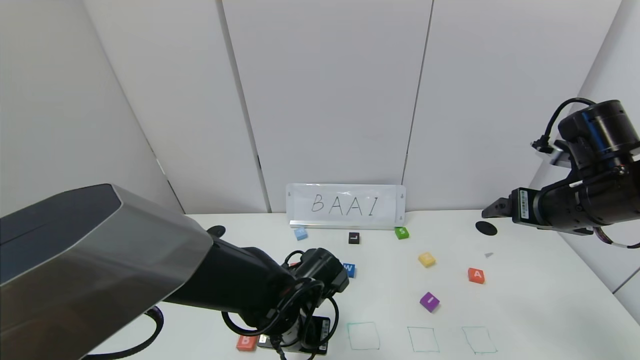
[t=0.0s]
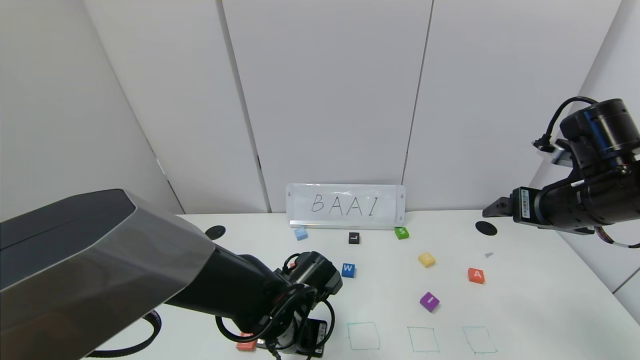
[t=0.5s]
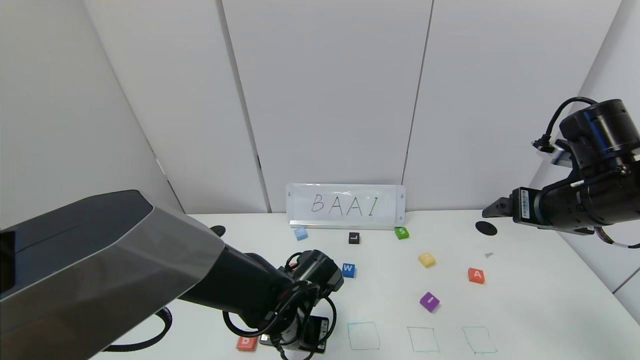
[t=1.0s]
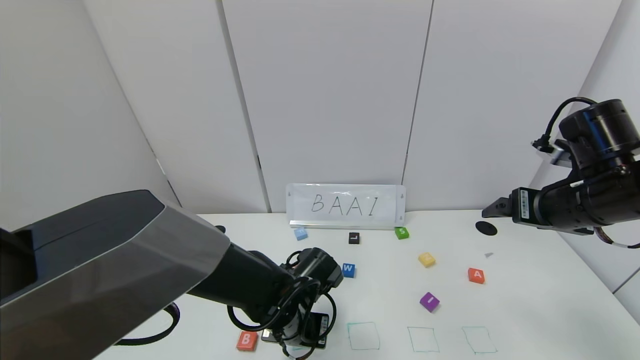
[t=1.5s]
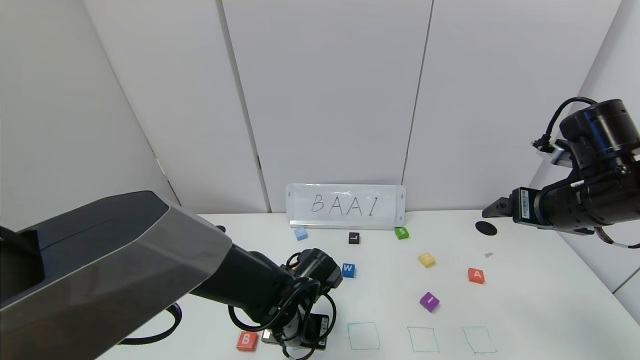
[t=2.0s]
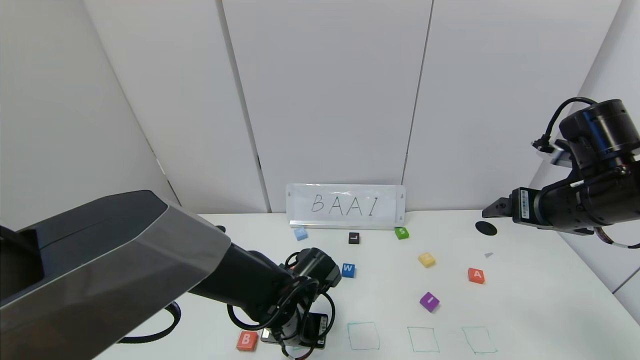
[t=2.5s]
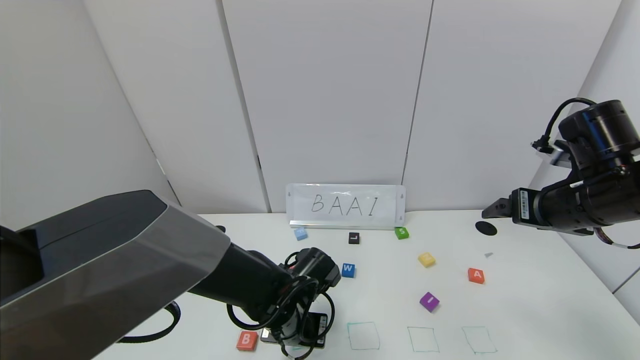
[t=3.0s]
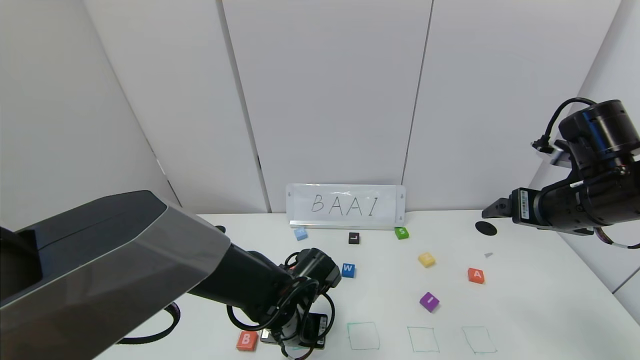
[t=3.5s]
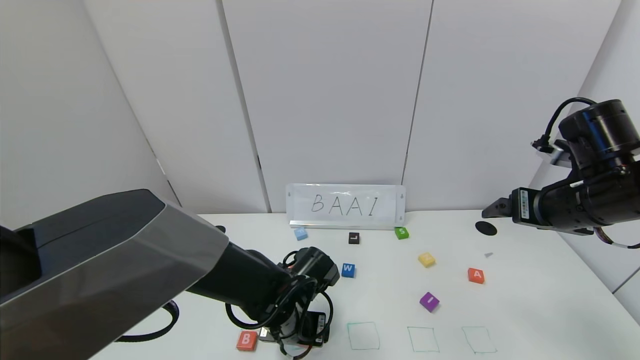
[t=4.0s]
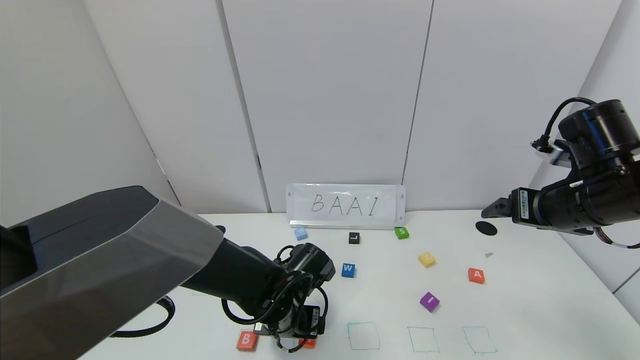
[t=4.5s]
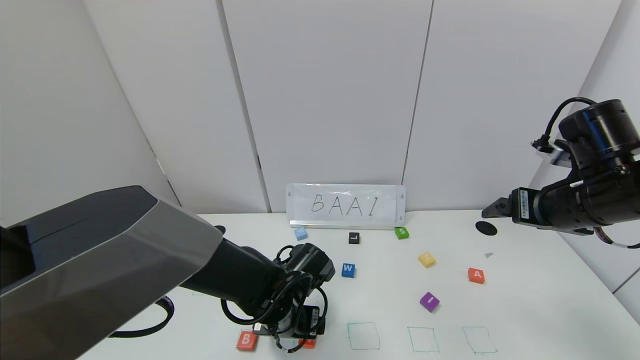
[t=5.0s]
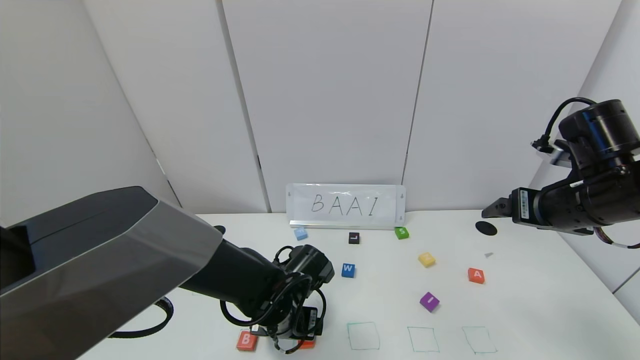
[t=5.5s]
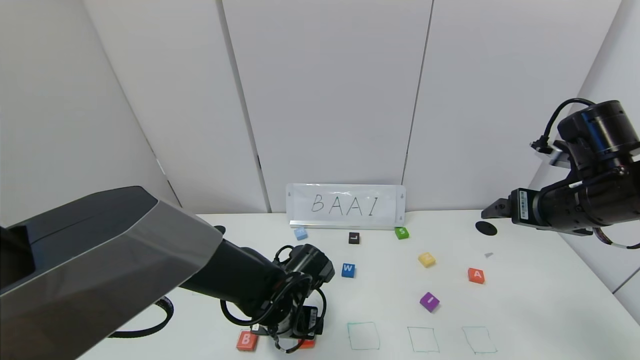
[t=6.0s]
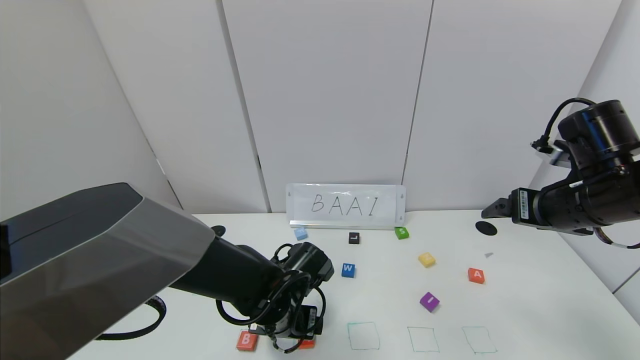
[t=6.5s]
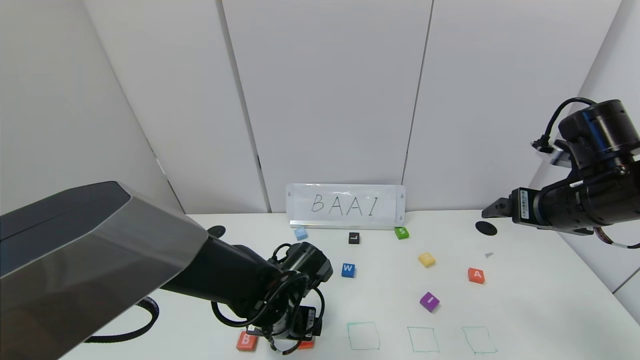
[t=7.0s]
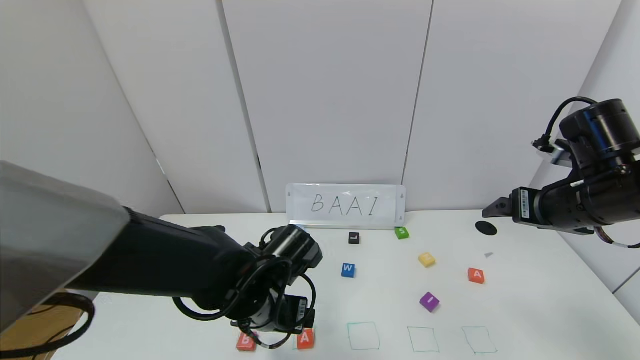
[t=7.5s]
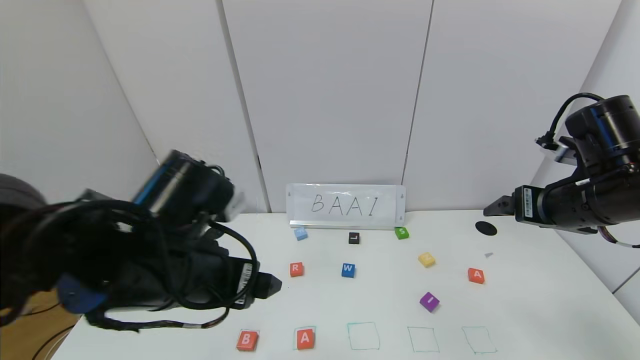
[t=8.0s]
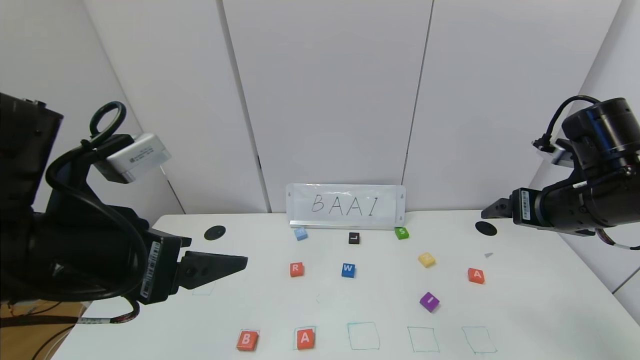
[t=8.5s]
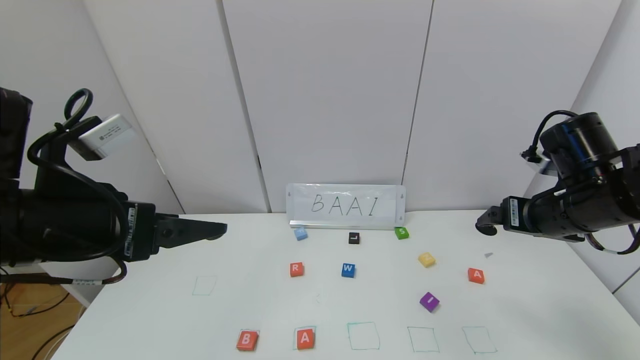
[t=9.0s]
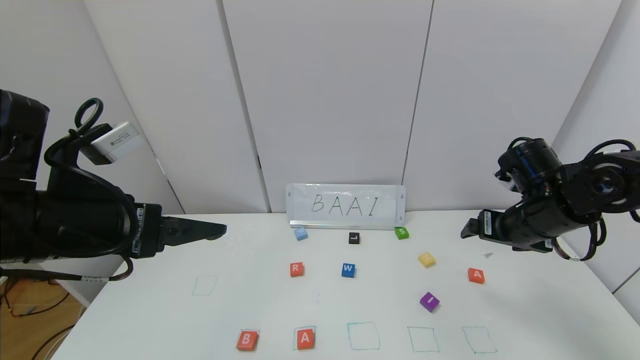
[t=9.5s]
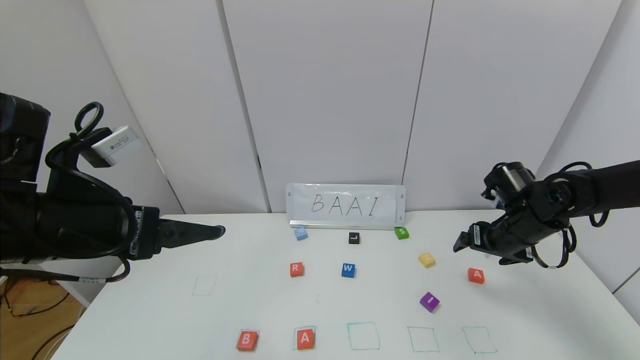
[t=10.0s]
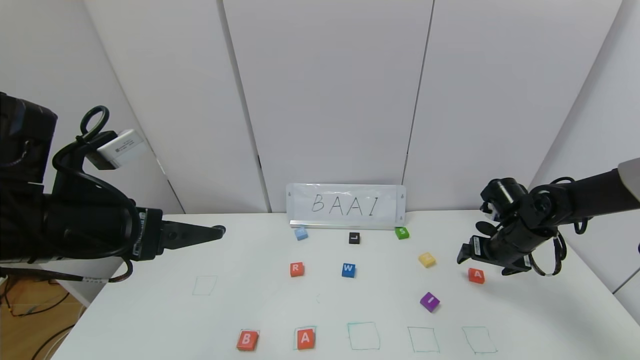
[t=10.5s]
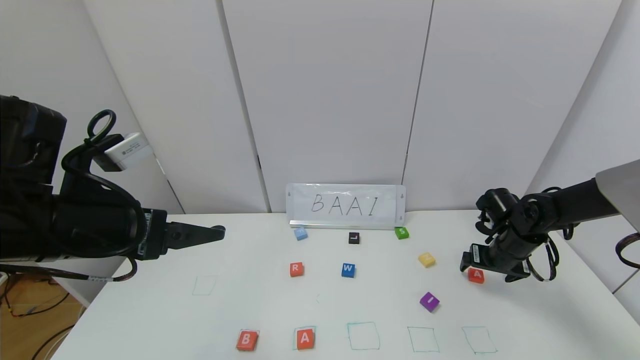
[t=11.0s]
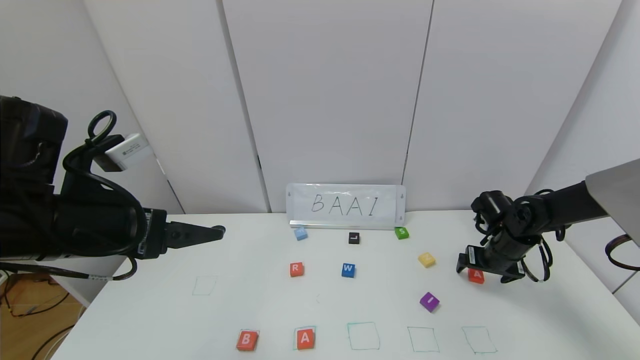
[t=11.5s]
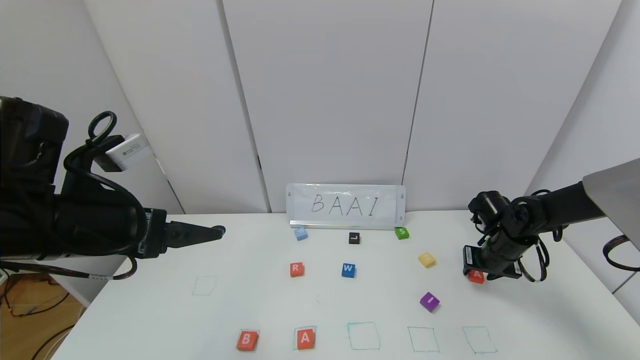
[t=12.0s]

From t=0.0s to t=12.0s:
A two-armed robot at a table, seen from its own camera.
Task of the whole recording: use the gripper to find blocks with the letters b, a, a, and i on the table and arrange them into BAAI, then find r and N and turn the arranged baai into brian.
Step, from t=0.0s to t=3.5s: Place the first block A in the second location.
From t=0.0s to t=2.0s: The grippers make only small movements.
From t=2.0s to t=4.0s: The left gripper opens its fingers.
From t=4.0s to t=6.0s: The grippers make only small movements.
From t=6.0s to t=8.0s: The left gripper goes approximately 20 cm upward, backward and to the left.
From t=8.0s to t=10.0s: The right gripper shifts approximately 15 cm downward and forward. Meanwhile the left gripper goes approximately 10 cm to the left.
From t=10.0s to t=12.0s: The right gripper heads downward, covering about 5 cm, and closes up.

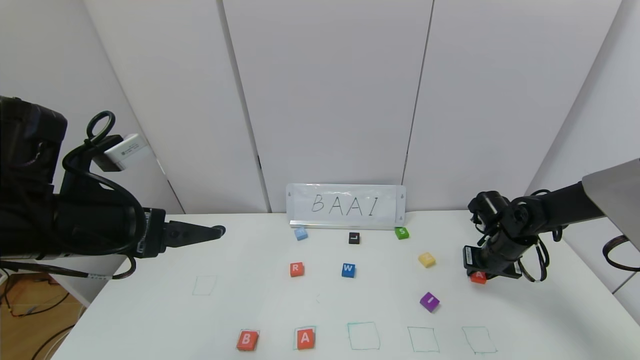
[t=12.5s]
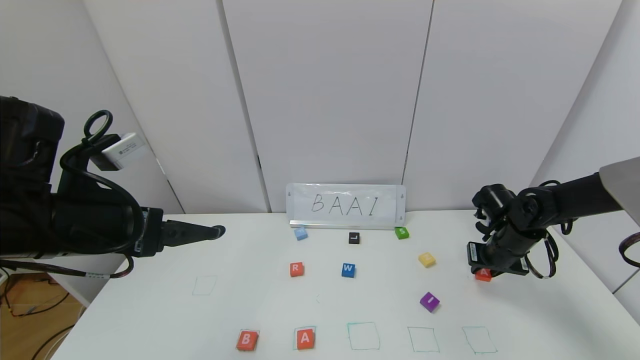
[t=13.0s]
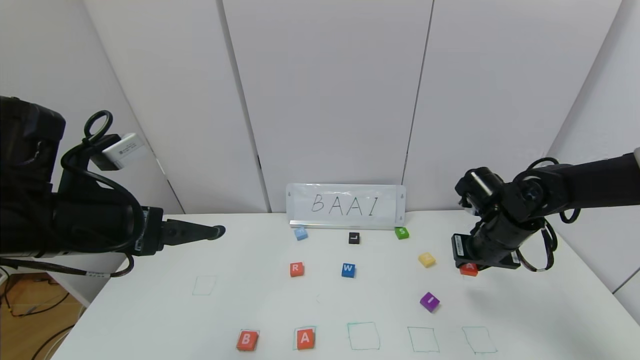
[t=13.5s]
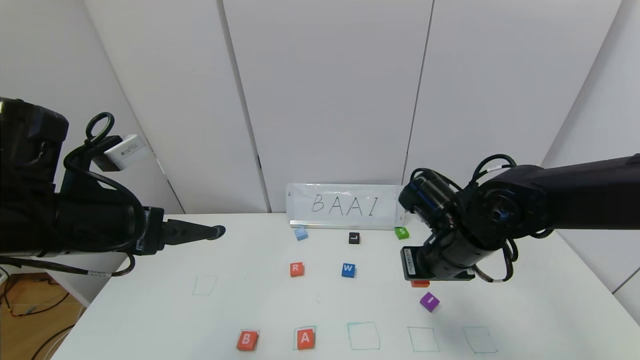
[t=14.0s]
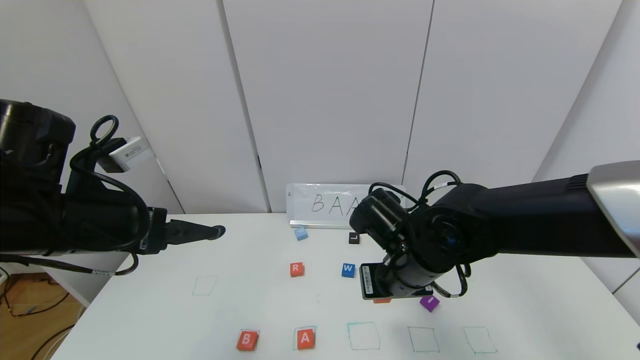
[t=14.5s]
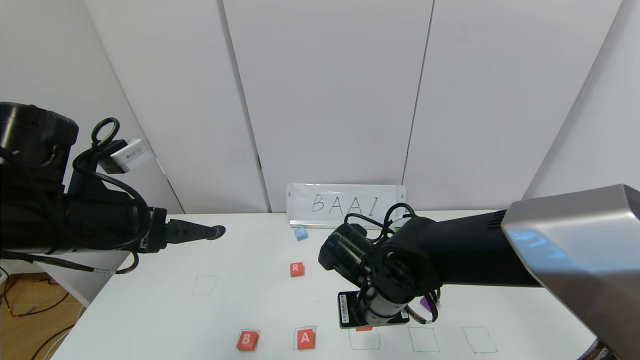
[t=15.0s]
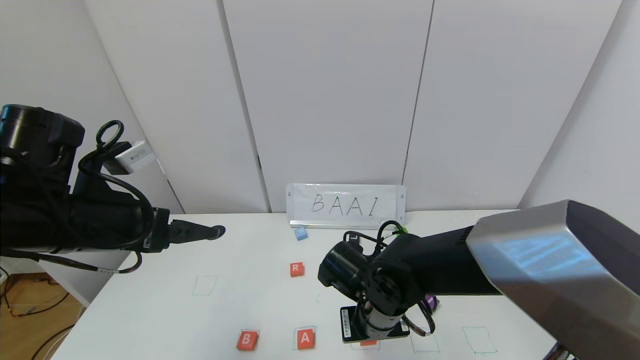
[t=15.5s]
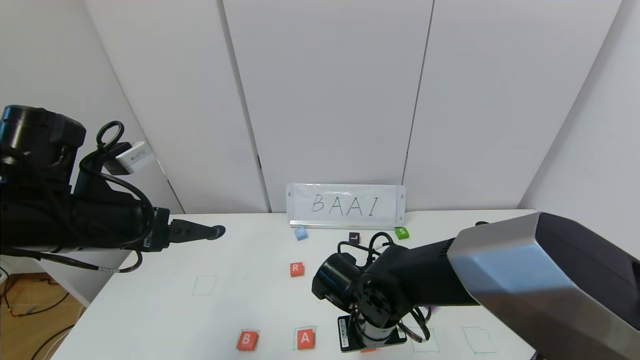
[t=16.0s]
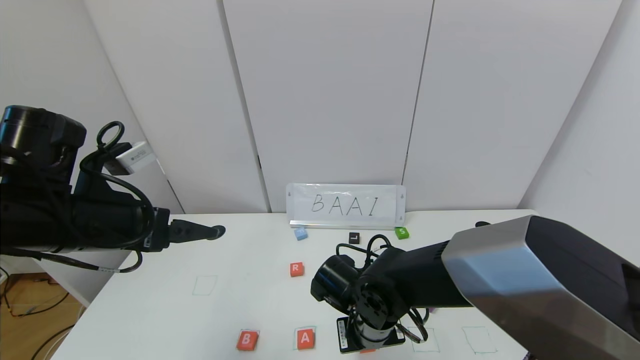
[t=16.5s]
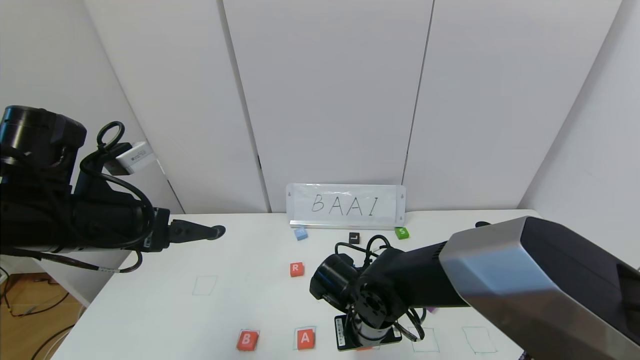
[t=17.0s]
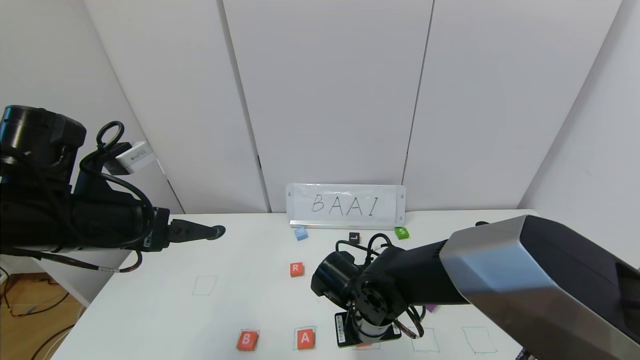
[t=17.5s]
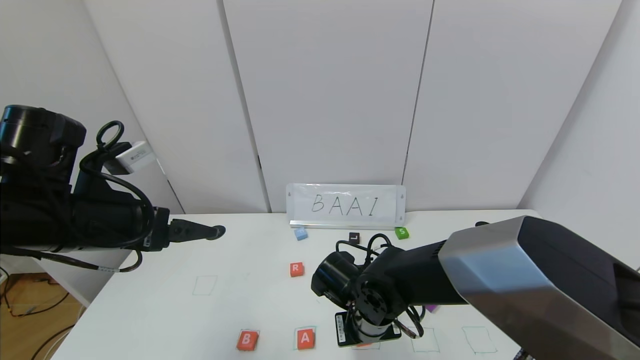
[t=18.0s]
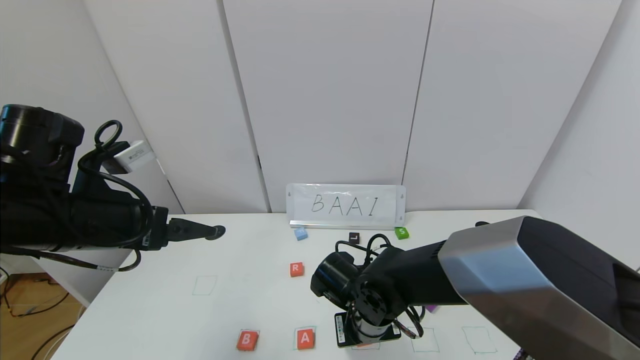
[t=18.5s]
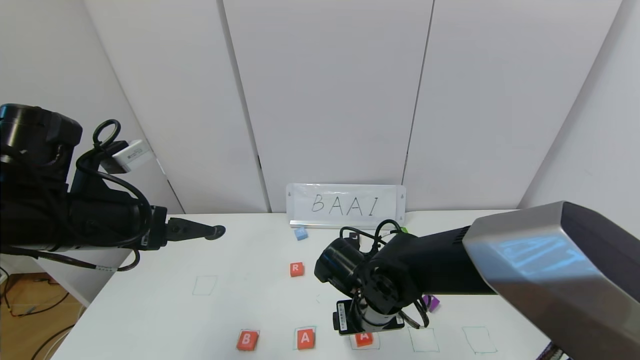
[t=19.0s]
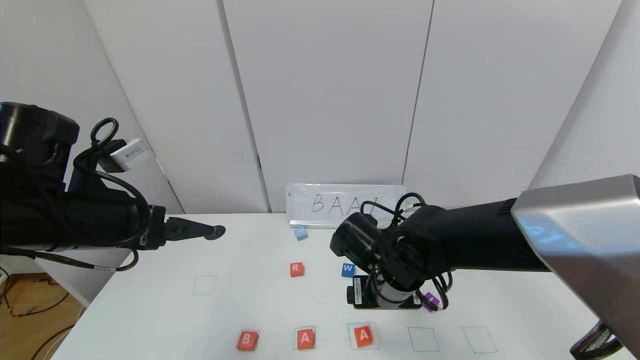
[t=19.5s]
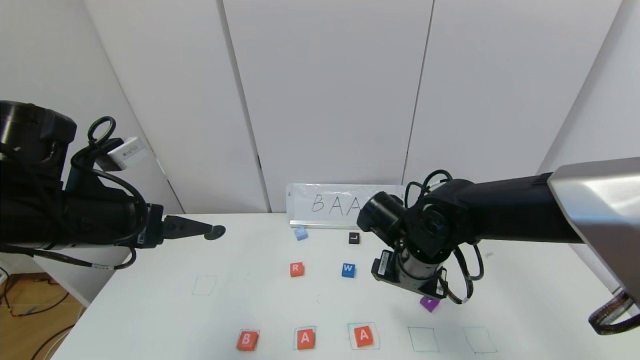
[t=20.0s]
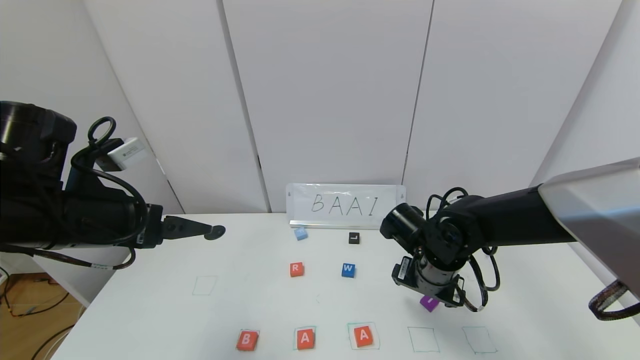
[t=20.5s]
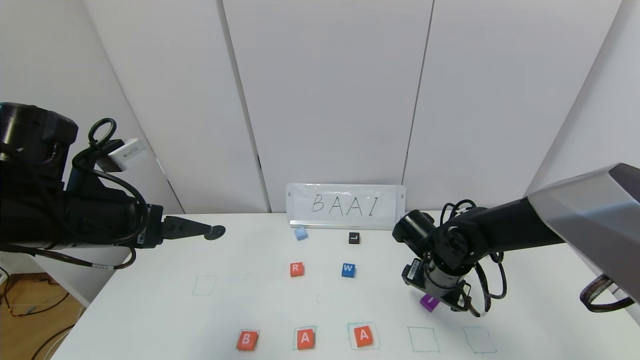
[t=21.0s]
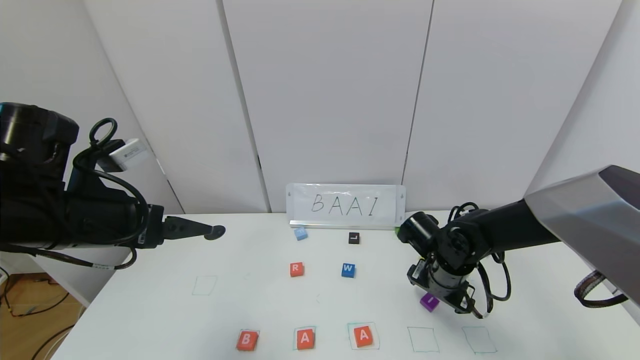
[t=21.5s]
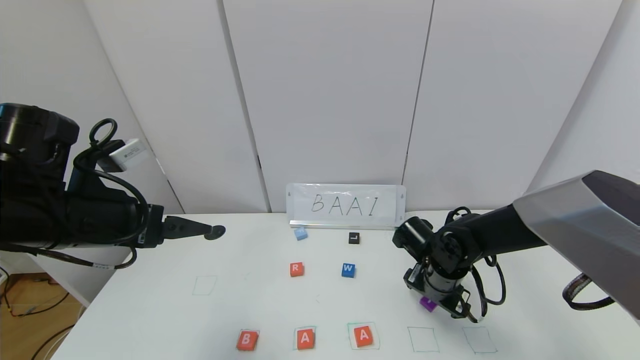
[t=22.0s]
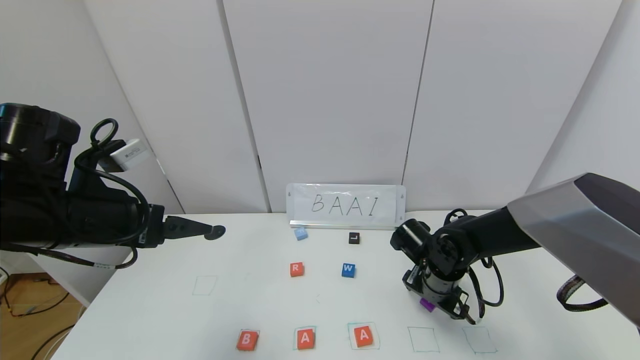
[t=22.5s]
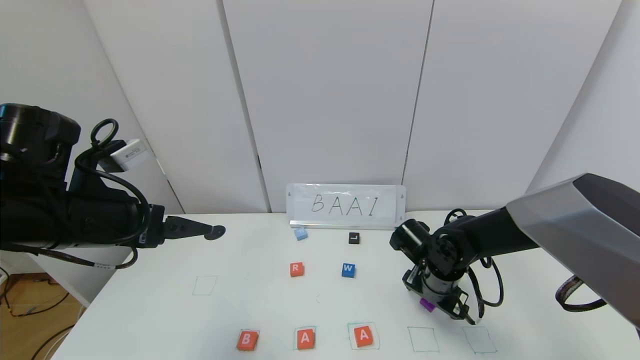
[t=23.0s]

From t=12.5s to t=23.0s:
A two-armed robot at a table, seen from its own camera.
Task of the whole recording: use the gripper to find blocks with the letters b, a, a, and i on the table and arrange them into BAAI, then find r and N and turn the arranged baai into brian.
Step, from t=12.5s to t=18.5s: Place the second block A in the third location.
From t=12.5s to t=14.5s: The right gripper shifts some 25 cm to the left and backward.
From t=14.5s to t=16.5s: The right gripper shifts some 10 cm downward.
From t=16.5s to t=19.0s: The right gripper opens.
From t=19.0s to t=21.0s: The right gripper moves to the right and forward, about 15 cm.
From t=21.0s to t=23.0s: There are only small adjustments of the grippers.
